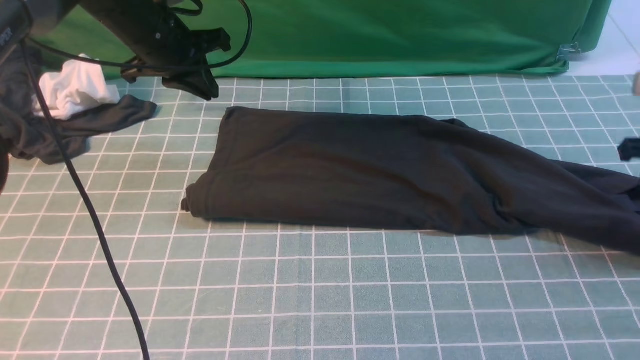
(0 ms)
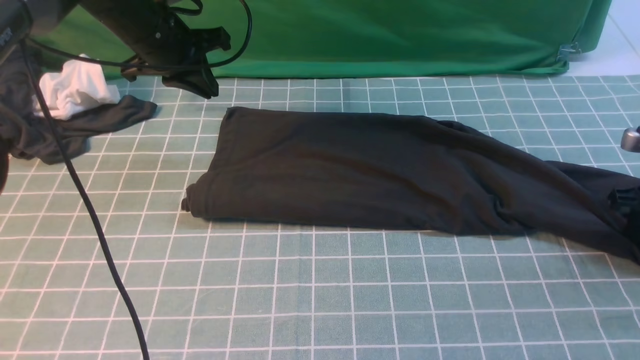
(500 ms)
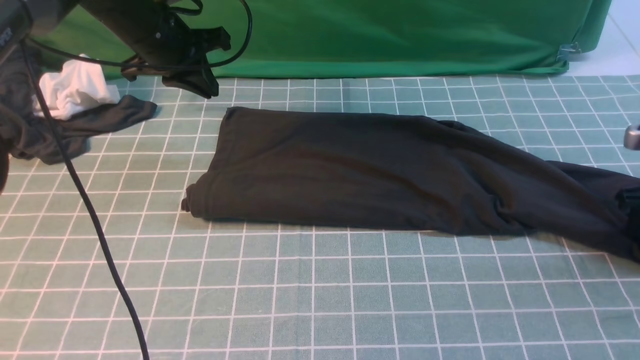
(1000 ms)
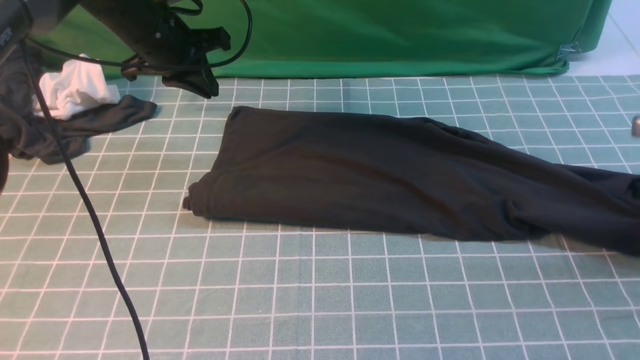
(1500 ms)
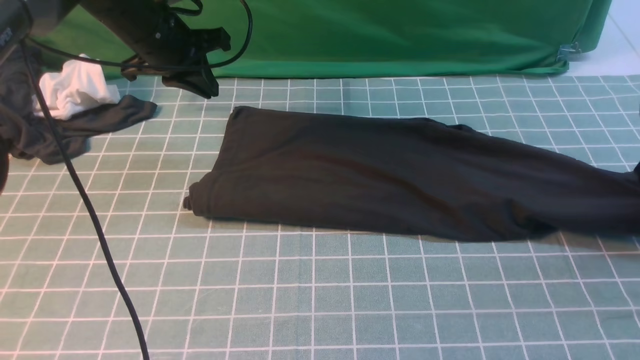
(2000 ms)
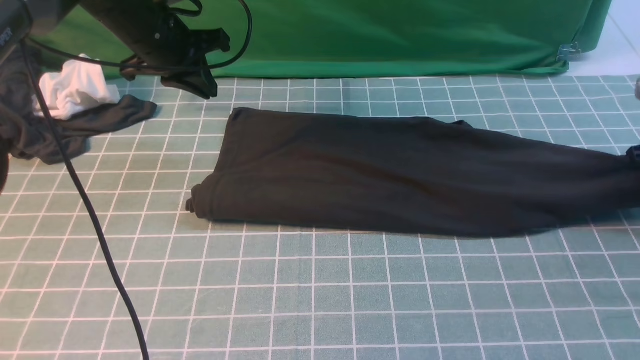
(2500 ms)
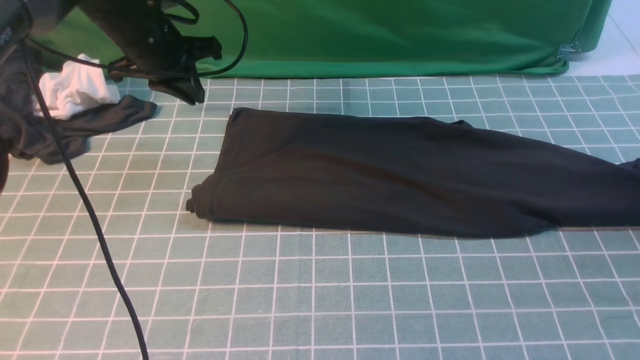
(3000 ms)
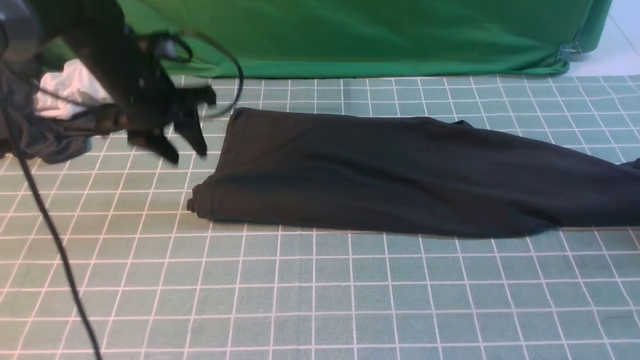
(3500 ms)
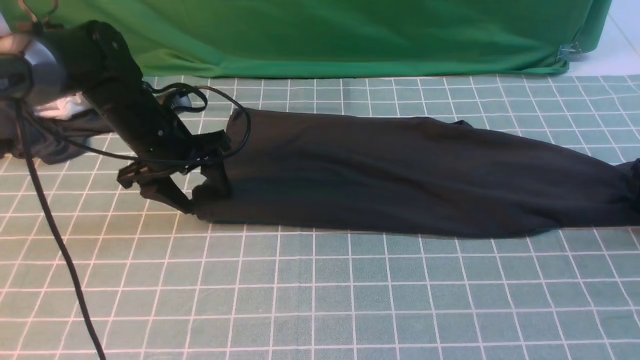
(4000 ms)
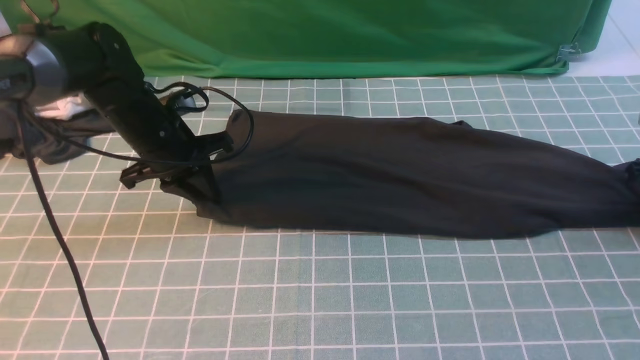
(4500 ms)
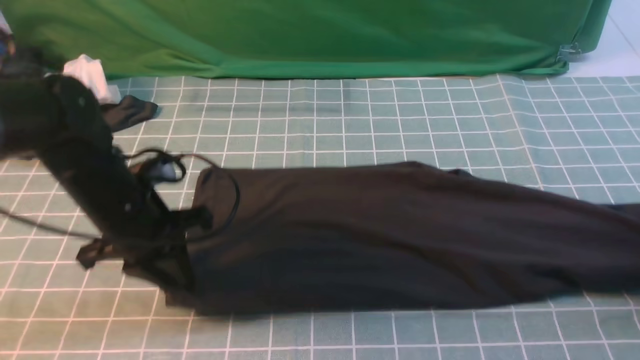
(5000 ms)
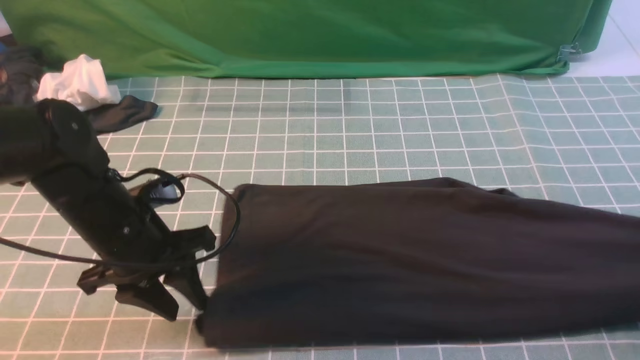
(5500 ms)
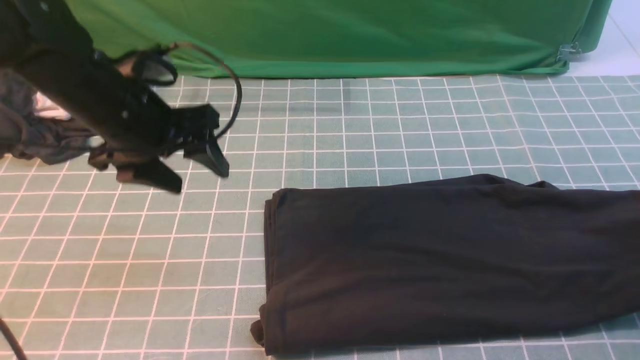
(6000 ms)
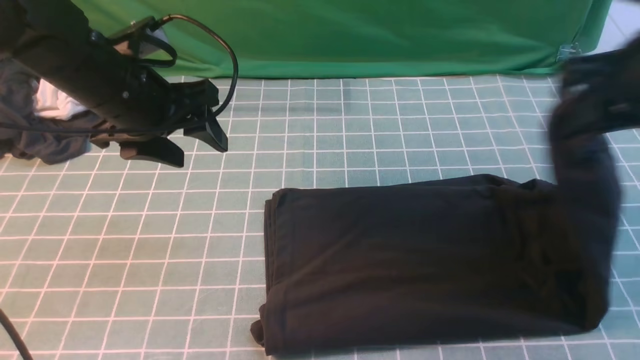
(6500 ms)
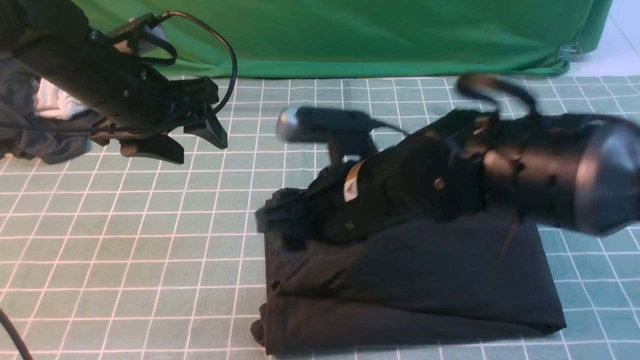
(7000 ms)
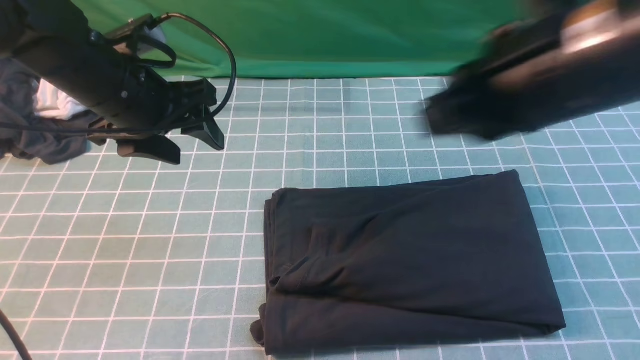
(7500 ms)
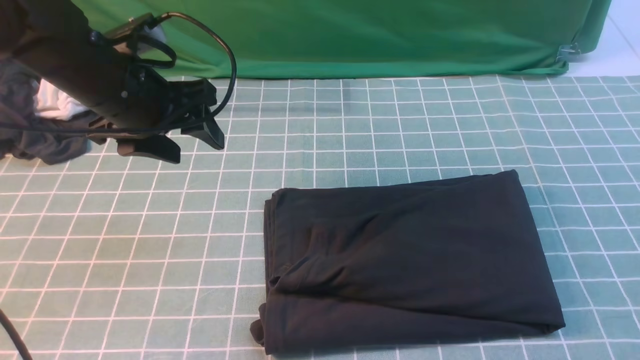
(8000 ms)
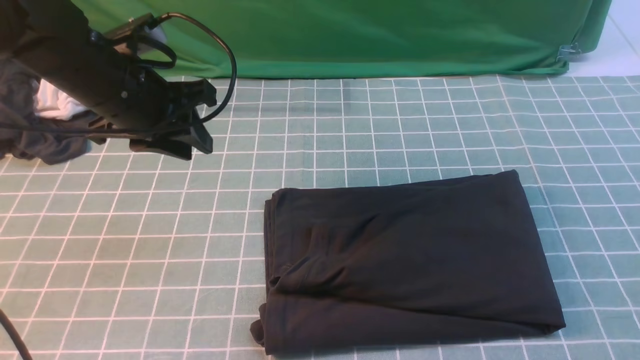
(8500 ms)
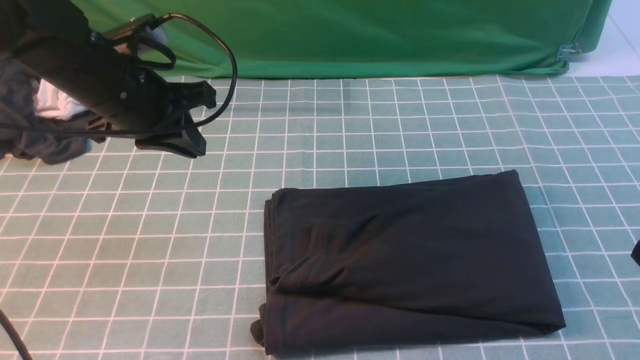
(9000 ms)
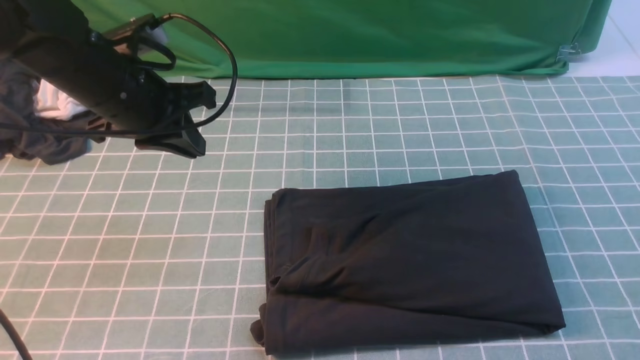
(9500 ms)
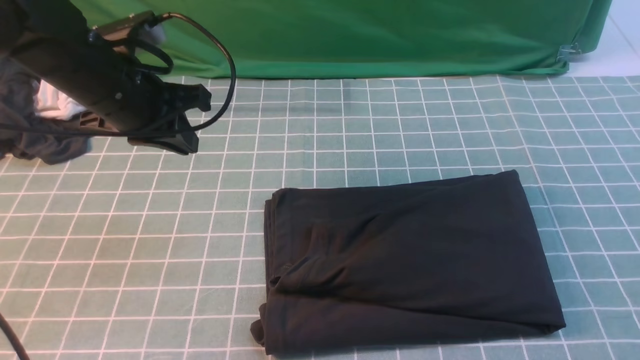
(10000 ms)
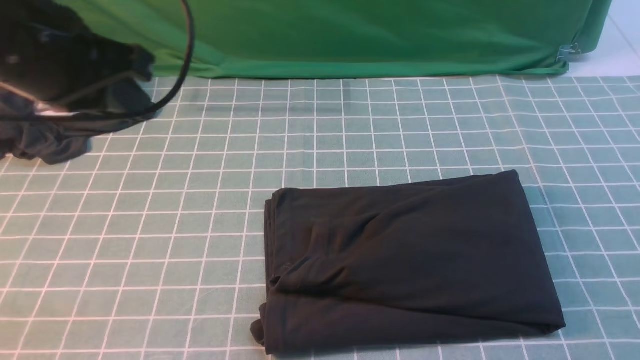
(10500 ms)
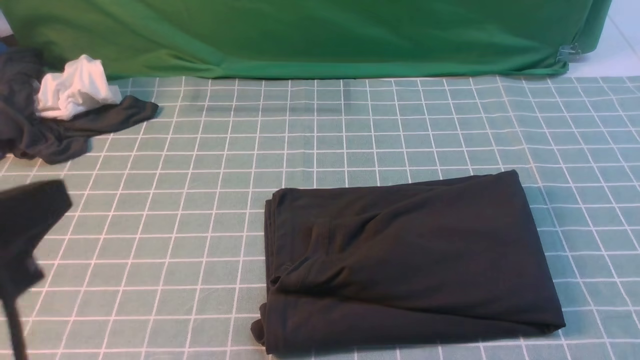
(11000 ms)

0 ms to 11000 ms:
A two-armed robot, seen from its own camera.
Step, 0 ms to 5500 ms: use the right arm to clamp the right edge of the fabric.
Step, 6000 ms to 7000 ms: use the right arm to drag the right edge of the fabric to the left and folds it over the left edge.
2000 ms to 3500 ms: The left gripper goes roughly 5 cm backward, and opens up. The right gripper opens its fingers.
3500 ms to 5500 ms: The left gripper is displaced backward by about 15 cm, and closes and opens again; the right gripper travels backward by approximately 10 cm, and closes.
5500 ms to 7500 ms: The right gripper goes approximately 35 cm to the left and upward, and opens, then closes again; the left gripper heads upward and forward, covering about 10 cm, and opens its fingers.
7500 ms to 9000 ms: The left gripper closes its fingers, while the right gripper goes roughly 25 cm downward, backward and to the right.
9000 ms to 11000 ms: The left gripper is displaced backward by roughly 25 cm.

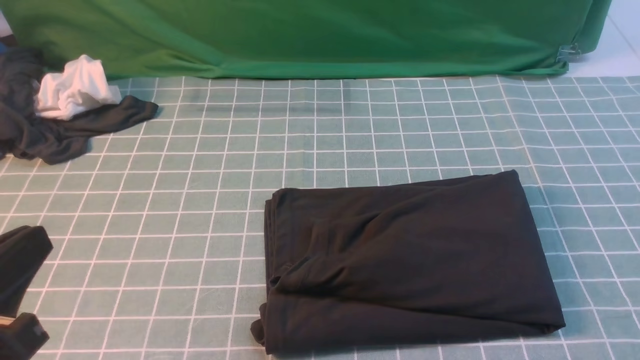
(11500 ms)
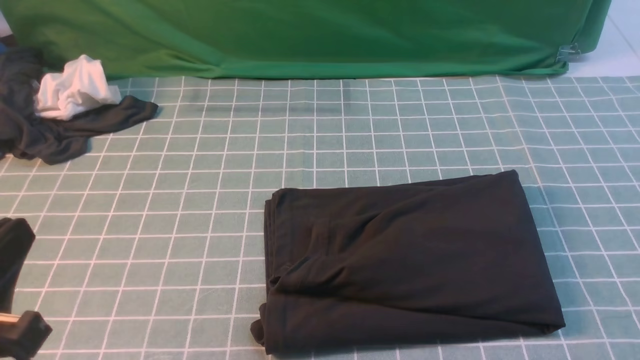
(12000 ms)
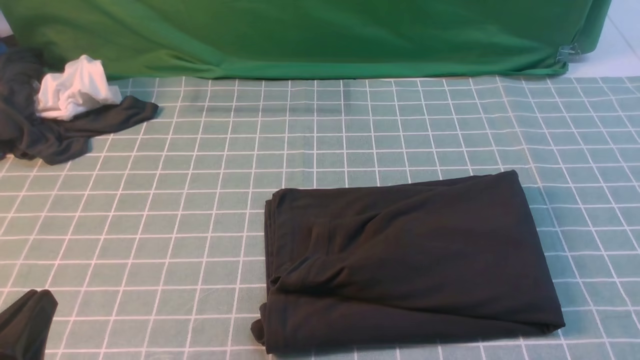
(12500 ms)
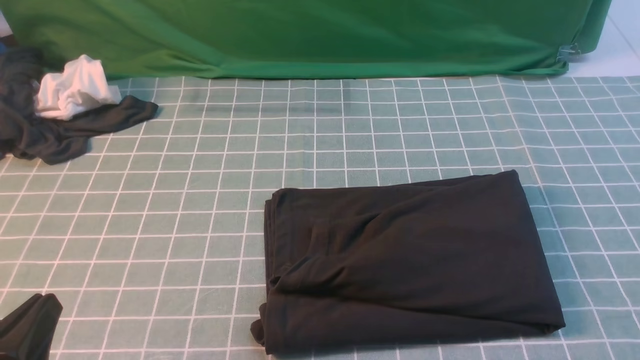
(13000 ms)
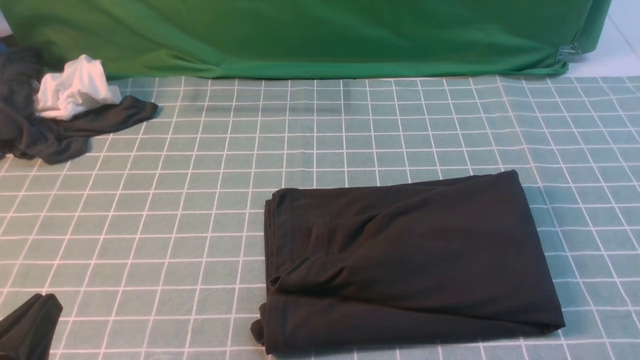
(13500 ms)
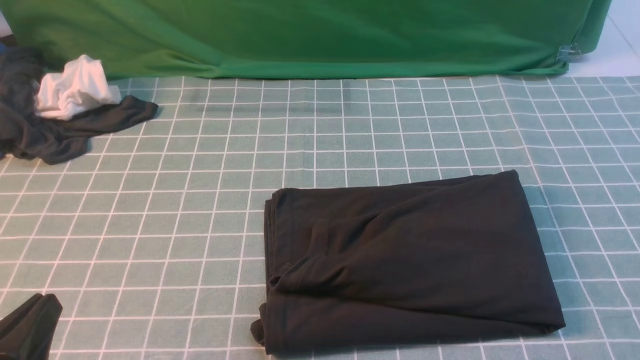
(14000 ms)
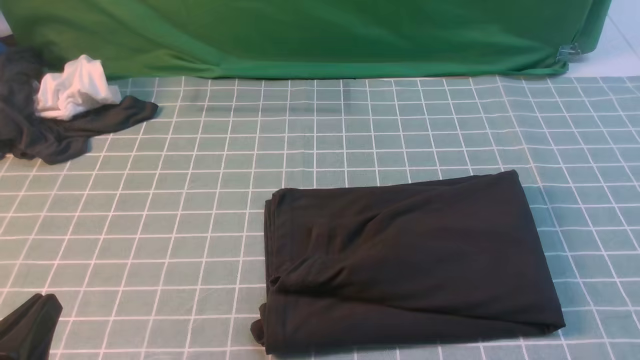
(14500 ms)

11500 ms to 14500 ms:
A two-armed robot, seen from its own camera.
11500 ms to 13000 ms: The left gripper is displaced downward by about 10 cm.
13000 ms to 14500 ms: Both grippers stay put.

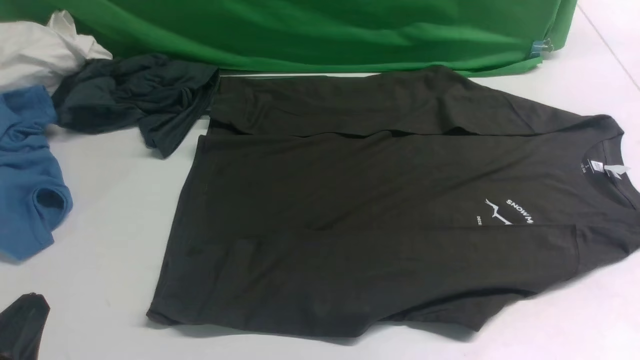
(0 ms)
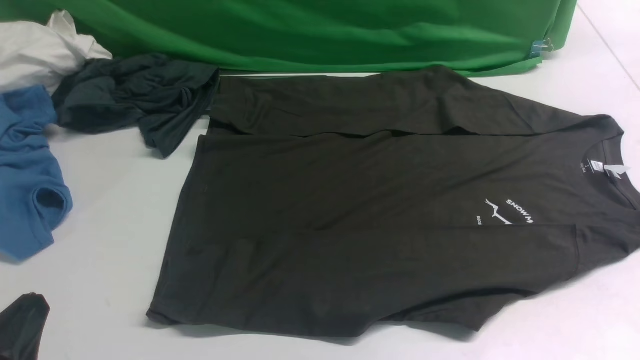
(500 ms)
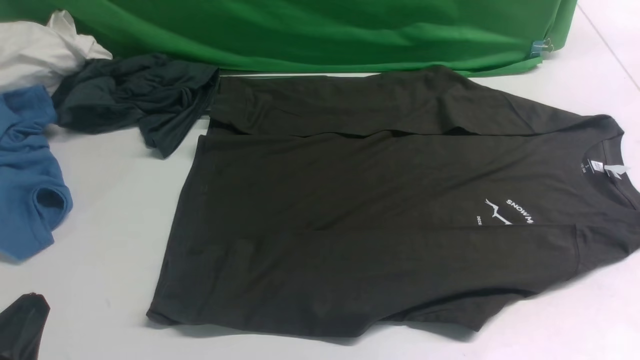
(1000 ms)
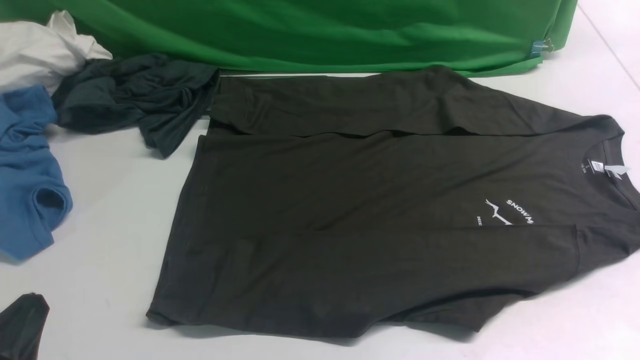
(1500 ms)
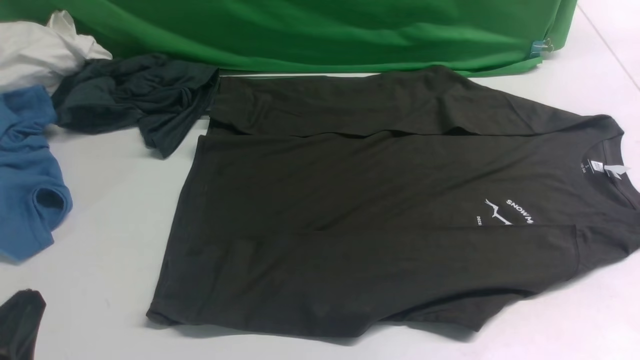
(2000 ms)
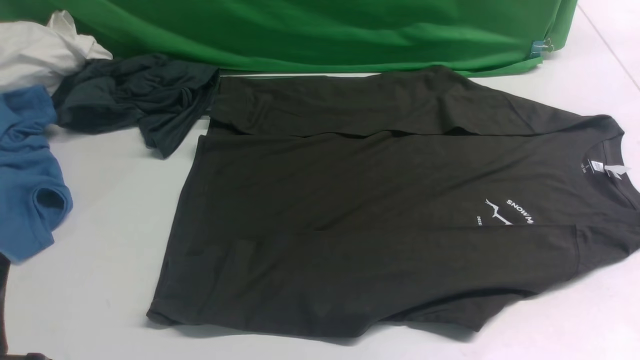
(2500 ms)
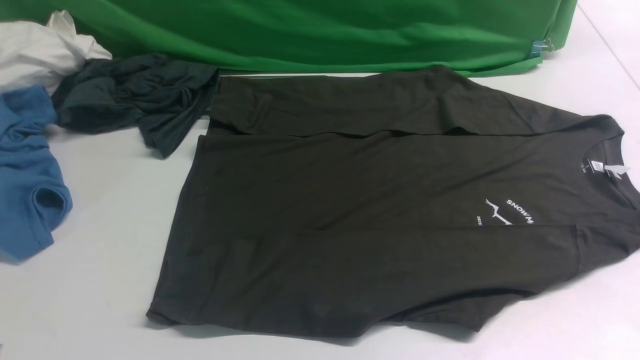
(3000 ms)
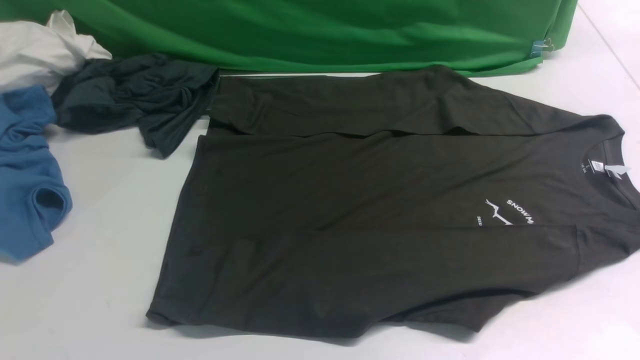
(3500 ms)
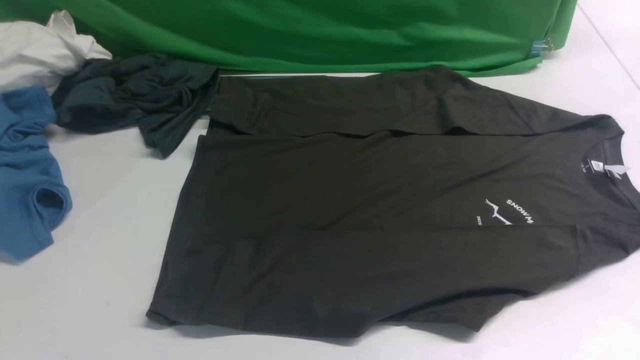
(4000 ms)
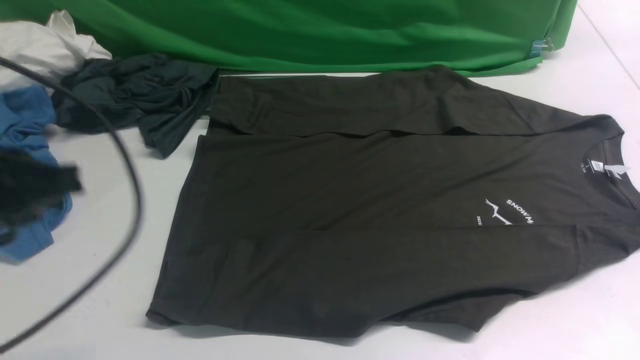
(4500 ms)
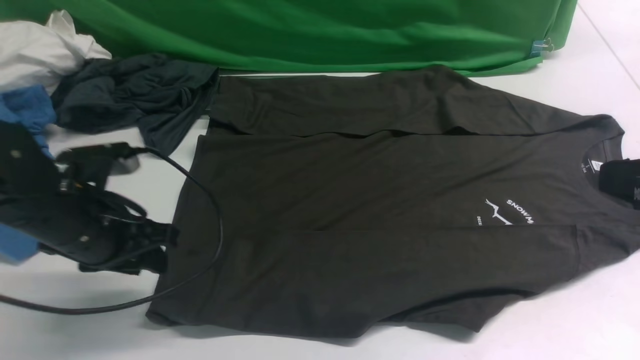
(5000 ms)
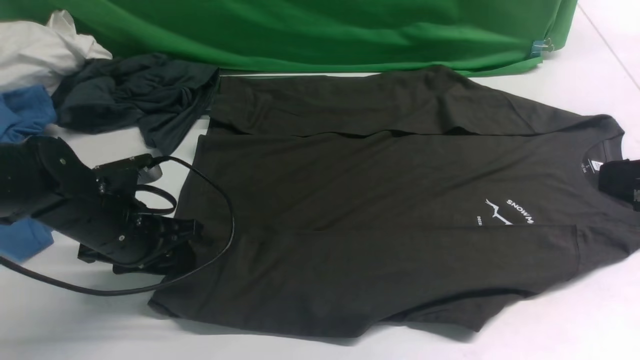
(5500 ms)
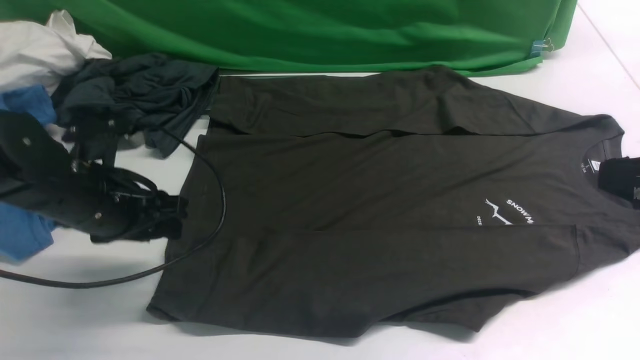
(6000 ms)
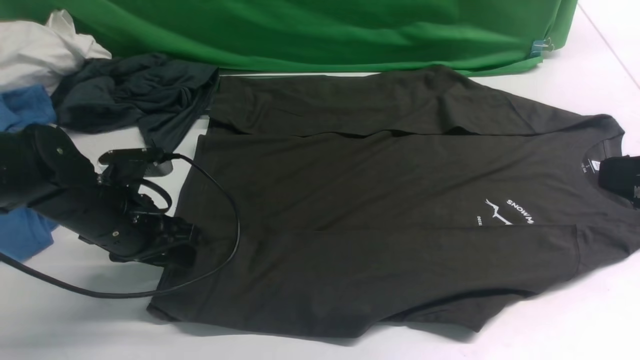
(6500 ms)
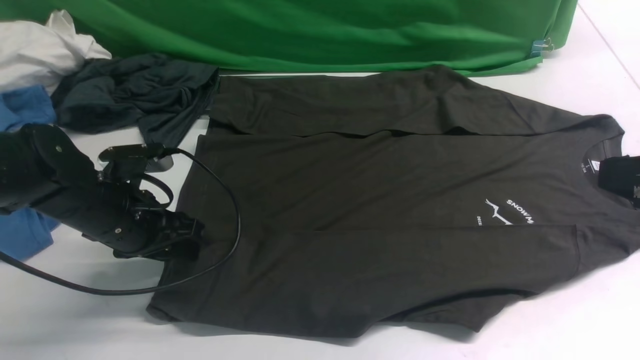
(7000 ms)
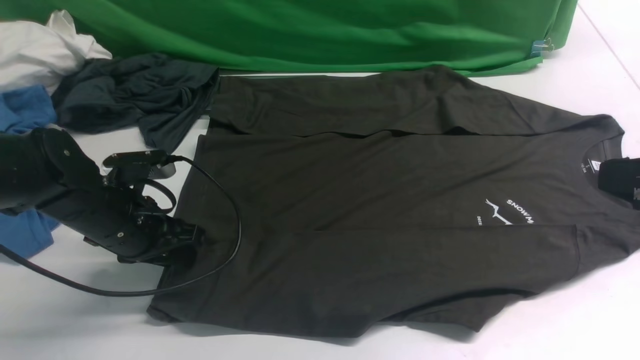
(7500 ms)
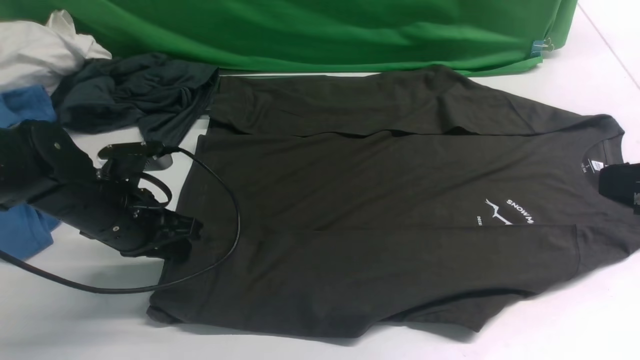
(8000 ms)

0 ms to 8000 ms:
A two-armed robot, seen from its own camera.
0 ms to 2000 ms: Both grippers stay put.
2000 ms to 4000 ms: The left gripper goes roughly 20 cm upward.
4000 ms to 6000 ms: The left gripper is displaced downward and forward by about 30 cm, and opens. The right gripper heads downward, forward and to the left, covering about 15 cm.
6000 ms to 8000 ms: The left gripper closes.
